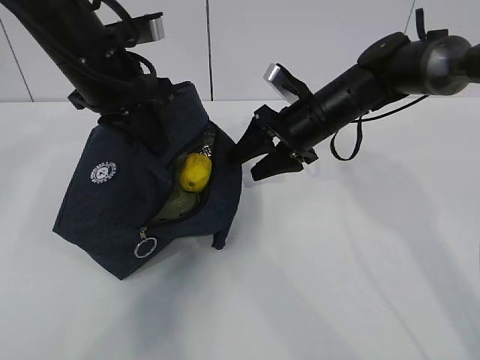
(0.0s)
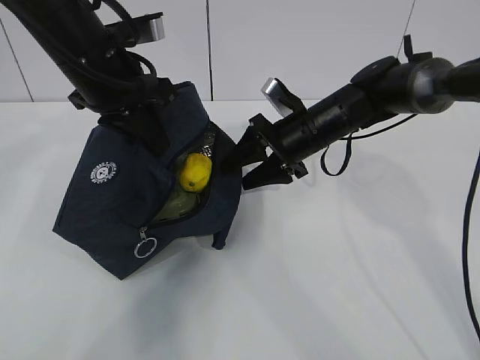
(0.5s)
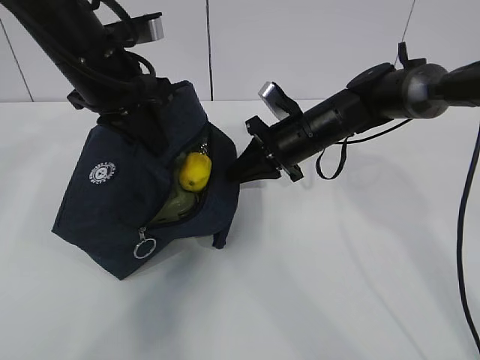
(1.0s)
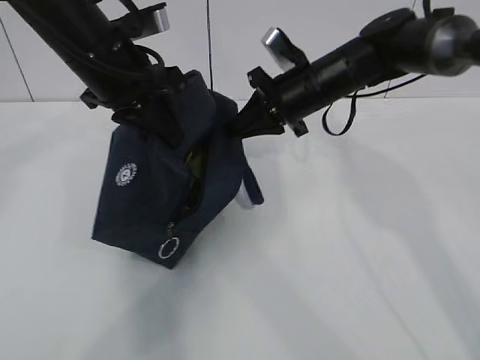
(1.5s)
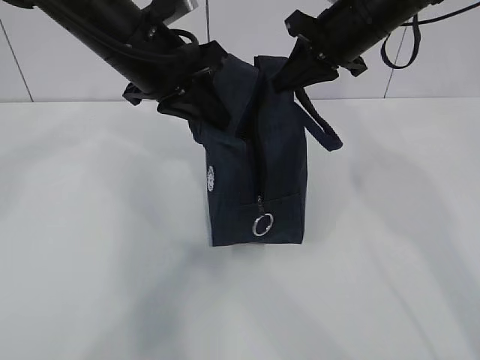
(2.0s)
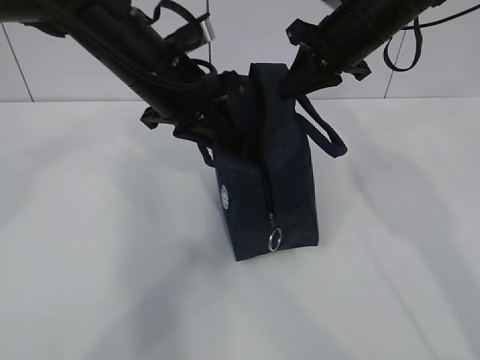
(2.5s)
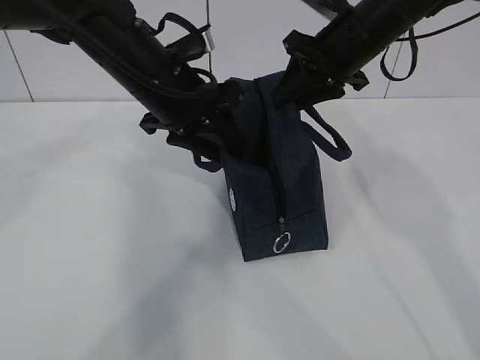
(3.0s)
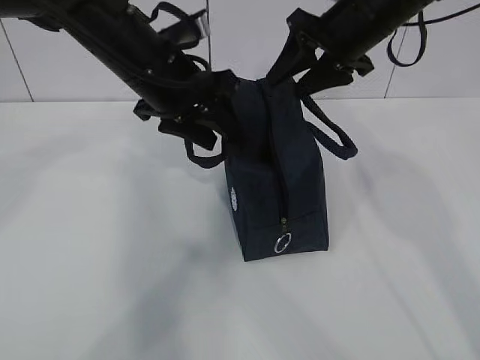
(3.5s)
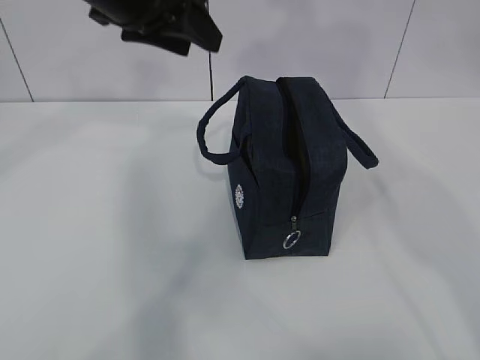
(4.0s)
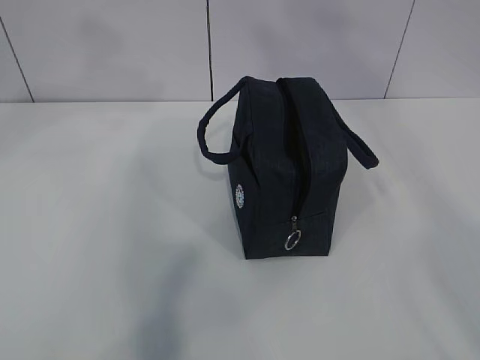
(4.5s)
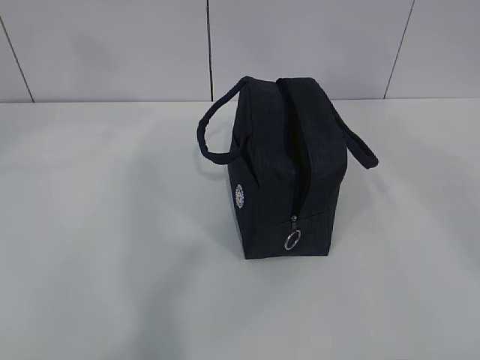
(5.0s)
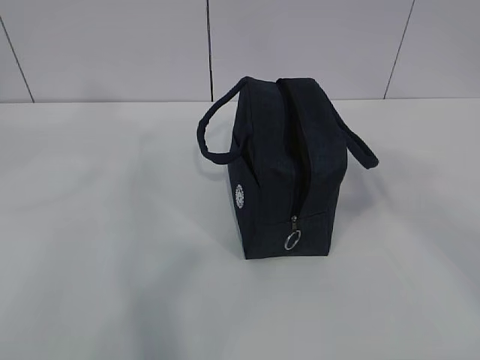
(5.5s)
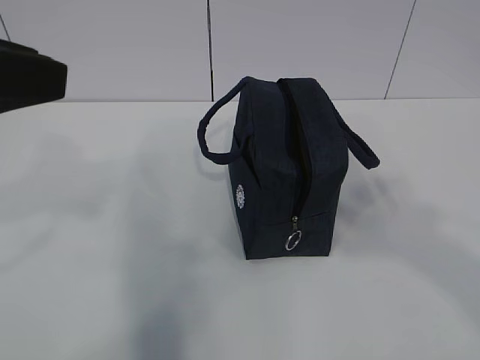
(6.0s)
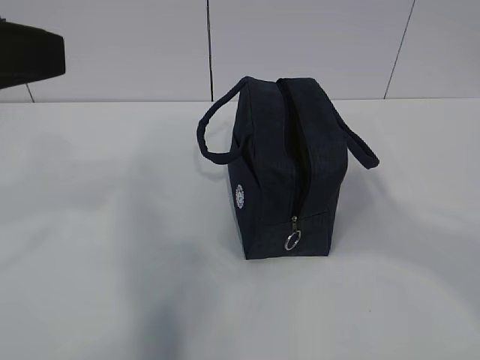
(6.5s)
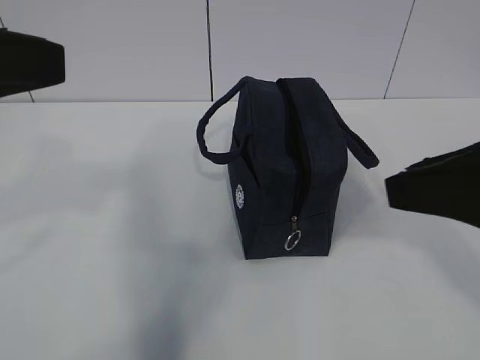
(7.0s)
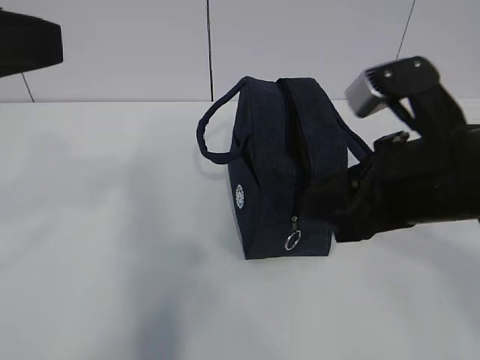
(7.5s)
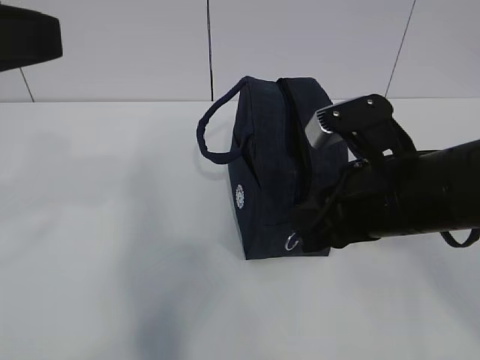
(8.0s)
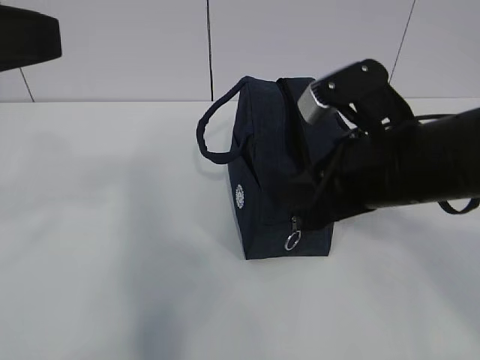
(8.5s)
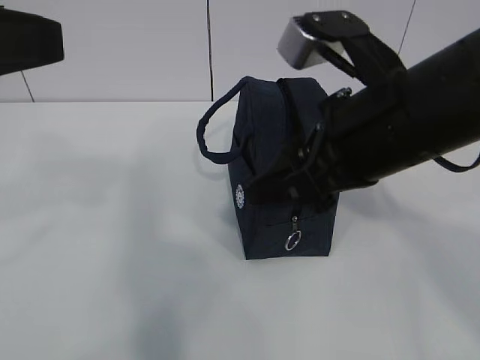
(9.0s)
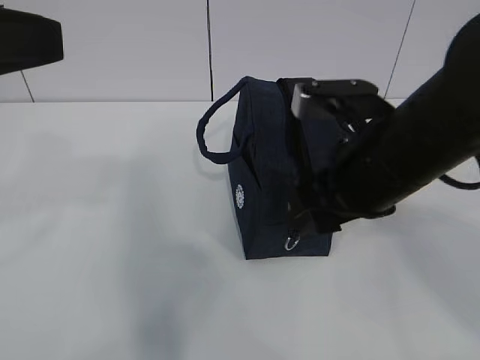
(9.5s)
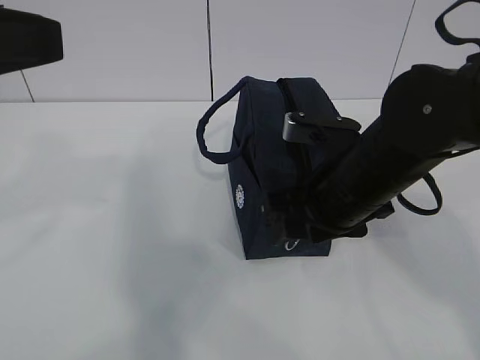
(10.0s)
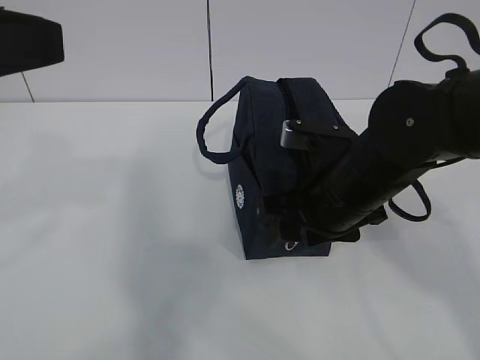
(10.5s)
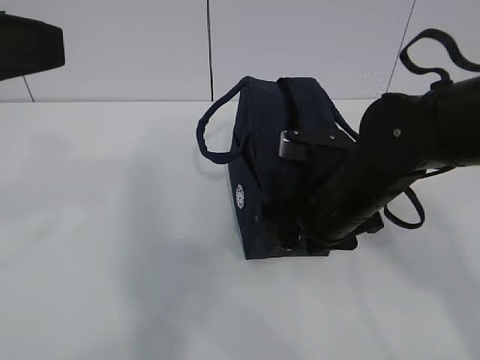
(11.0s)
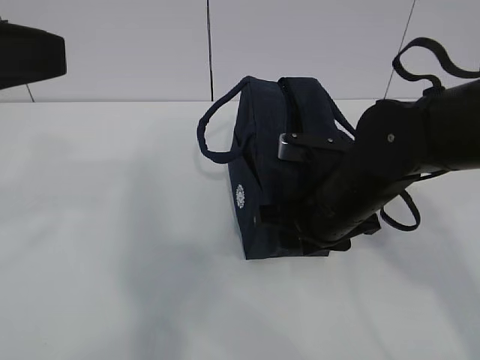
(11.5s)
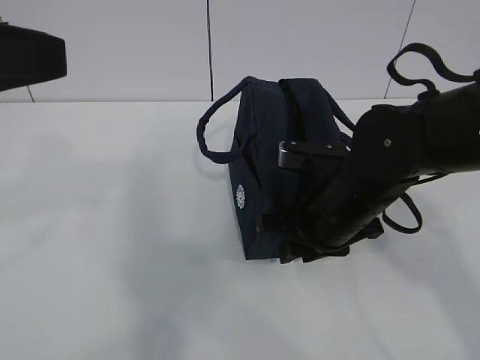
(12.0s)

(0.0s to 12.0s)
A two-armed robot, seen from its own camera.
0.0s - 2.0s: The right gripper shifts about 10 cm upward, and closes.
2.0s - 4.0s: The left gripper is displaced upward by roughly 5 cm, and opens up. Meanwhile the right gripper moves upward and backward, approximately 20 cm, and opens.
4.0s - 6.0s: The left gripper shifts about 20 cm backward and to the left. Meanwhile the right gripper heads backward, covering roughly 30 cm.
6.0s - 8.0s: The right gripper is displaced forward, downward and to the left by about 30 cm, and closes.
8.0s - 10.0s: The right gripper goes upward and returns, approximately 5 cm each way, and opens up.
10.0s - 12.0s: The grippers make only small movements.

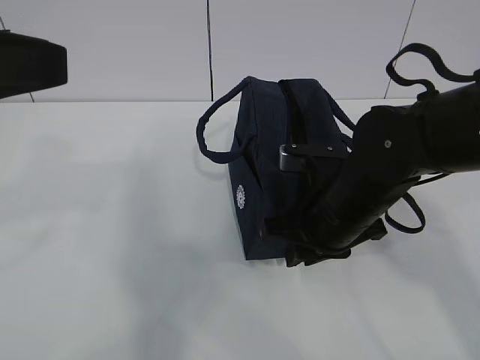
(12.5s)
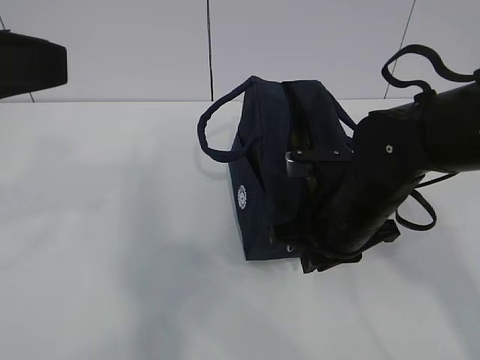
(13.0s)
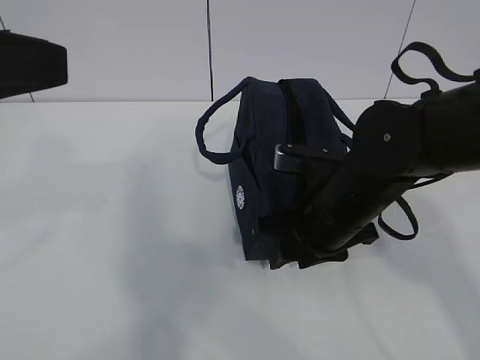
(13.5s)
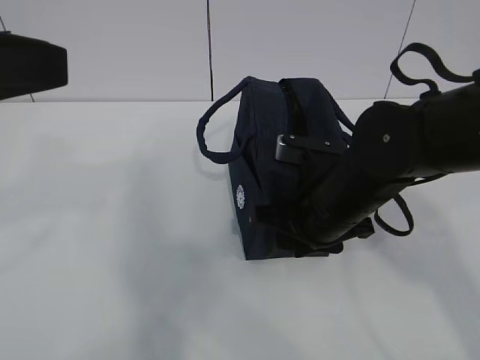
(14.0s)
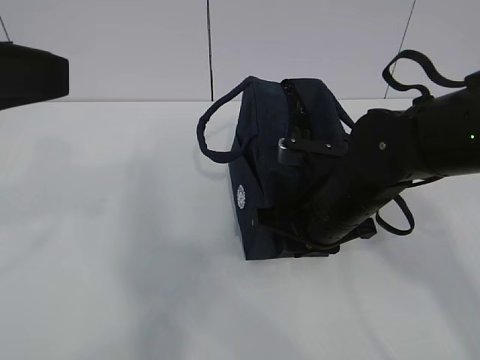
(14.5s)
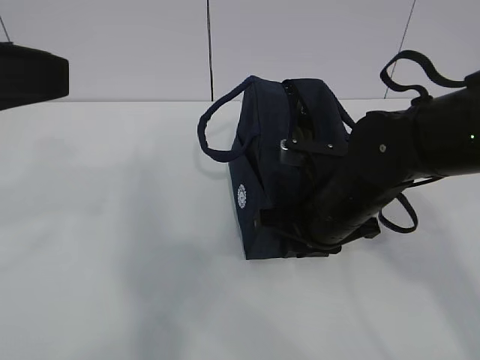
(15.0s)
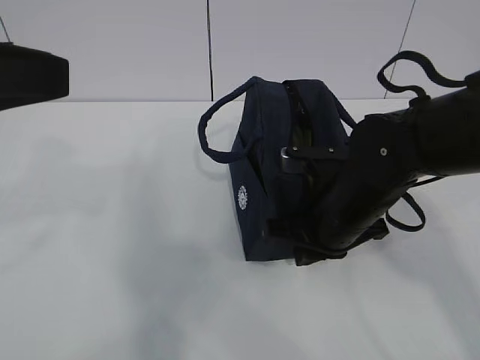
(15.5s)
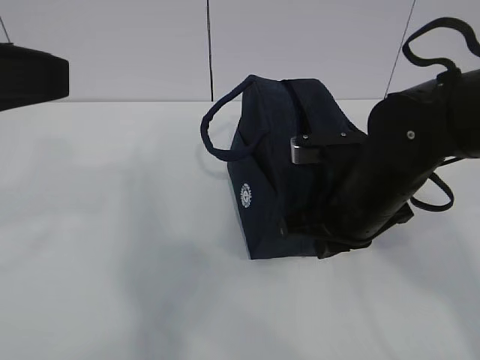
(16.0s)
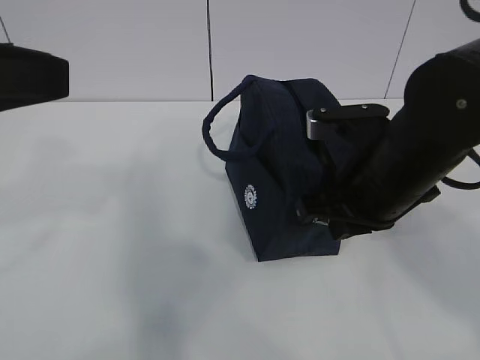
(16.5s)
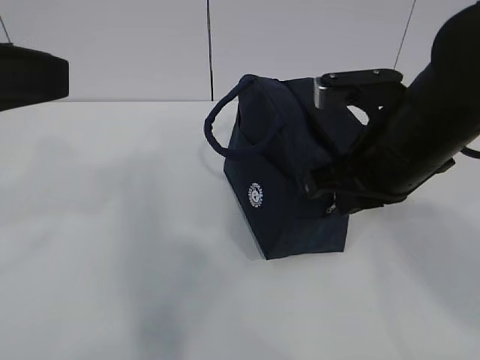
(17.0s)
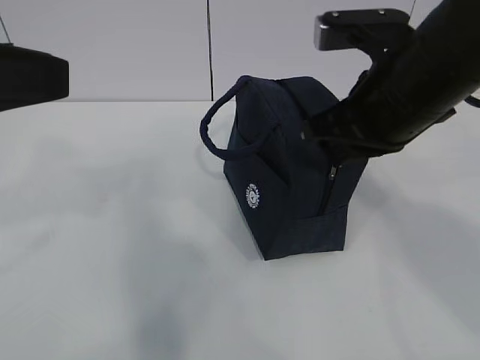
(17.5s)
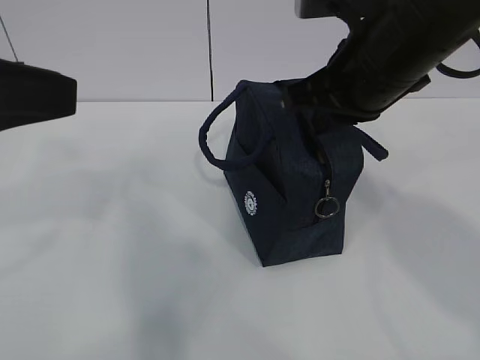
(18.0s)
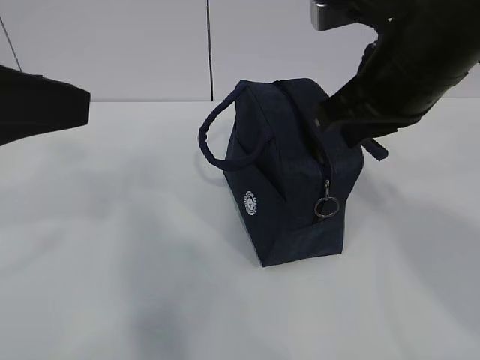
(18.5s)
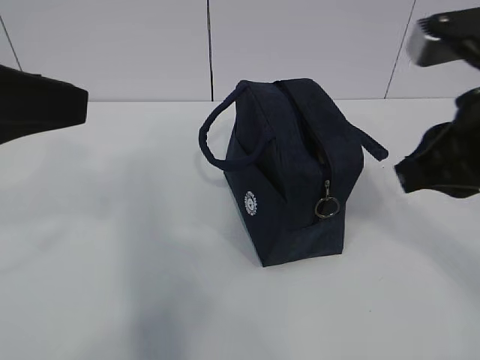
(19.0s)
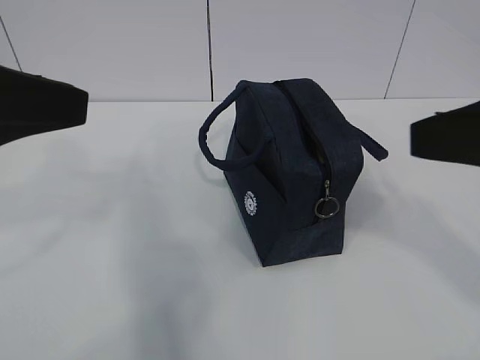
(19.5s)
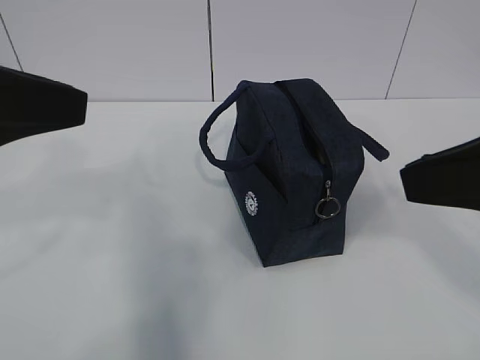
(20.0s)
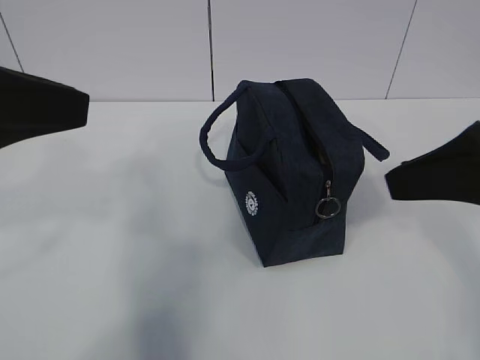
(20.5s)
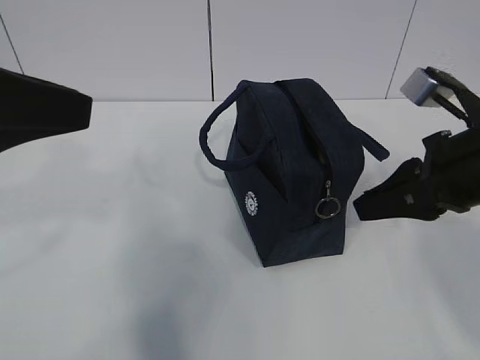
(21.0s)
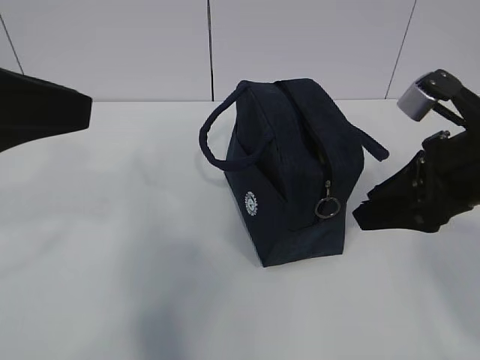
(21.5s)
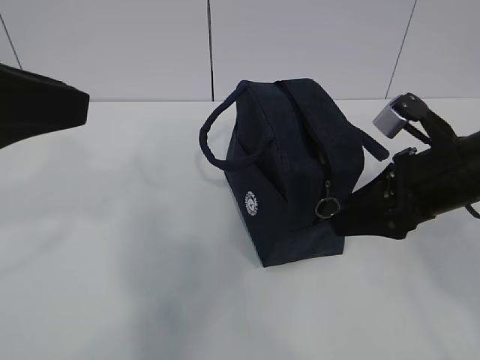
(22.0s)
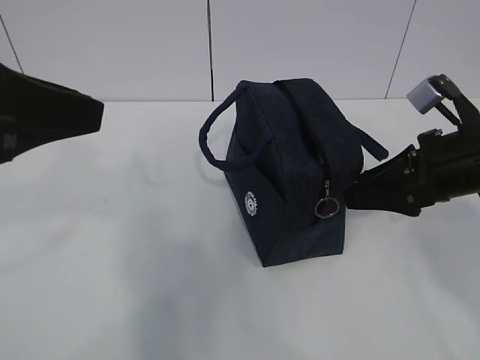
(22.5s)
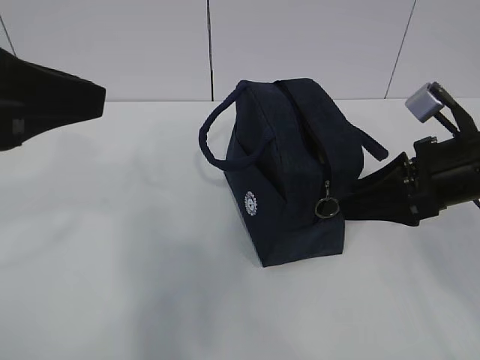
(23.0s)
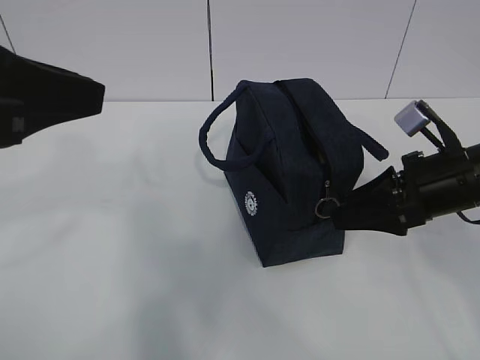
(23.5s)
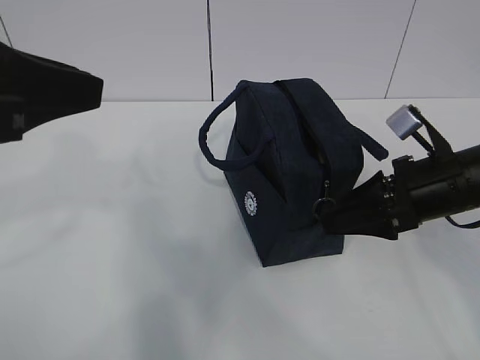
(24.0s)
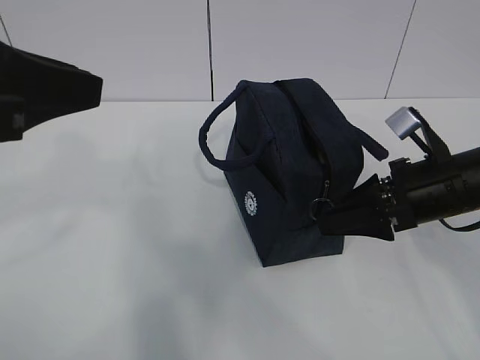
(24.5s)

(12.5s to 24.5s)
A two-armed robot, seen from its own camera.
12.5s - 14.5s: There are only small adjustments of the grippers.
14.5s - 16.5s: The right gripper shifts some 5 cm upward.
16.5s - 18.5s: The right gripper heads upward, covering approximately 10 cm.
18.5s - 20.5s: The right gripper is displaced backward and to the right by approximately 10 cm.
20.5s - 22.5s: The right gripper moves downward and forward, some 15 cm, and opens.
22.5s - 24.5s: There are only small adjustments of the grippers.

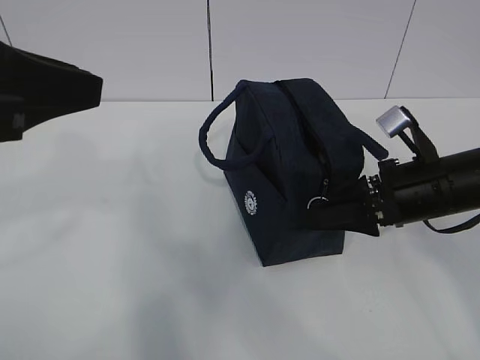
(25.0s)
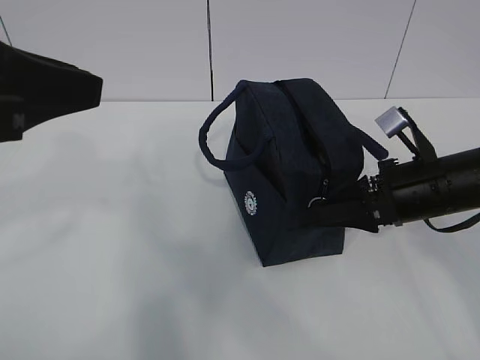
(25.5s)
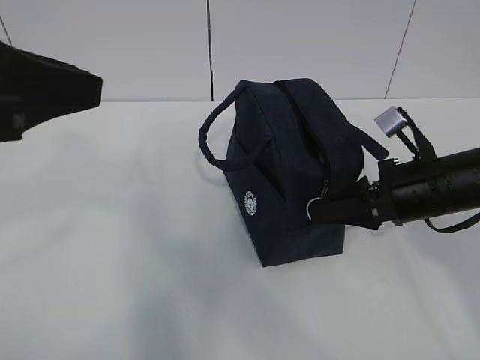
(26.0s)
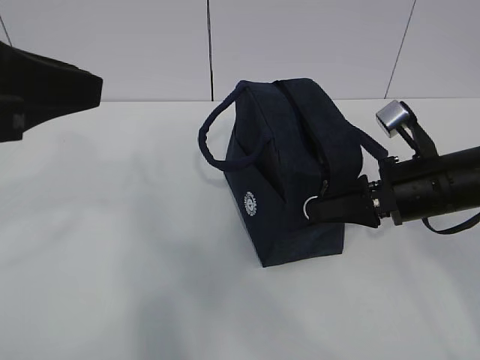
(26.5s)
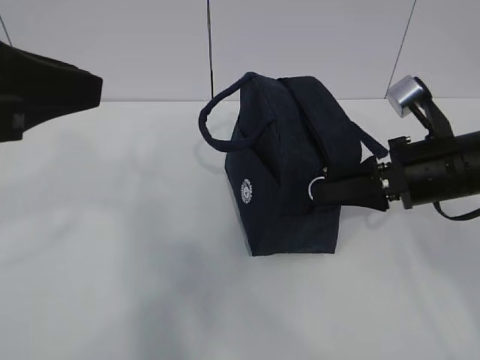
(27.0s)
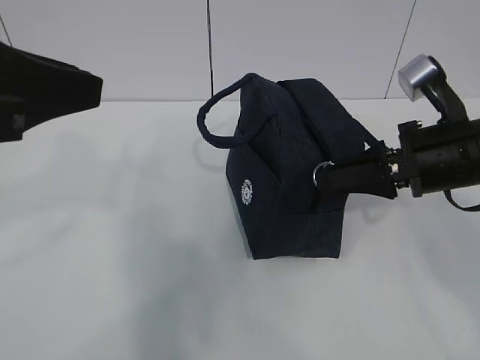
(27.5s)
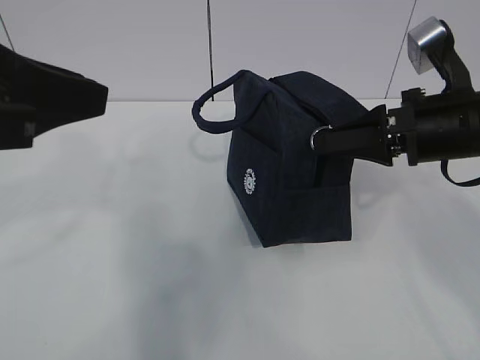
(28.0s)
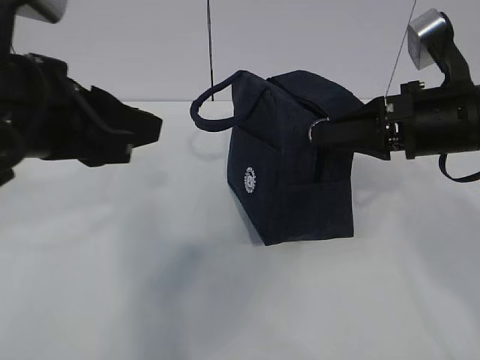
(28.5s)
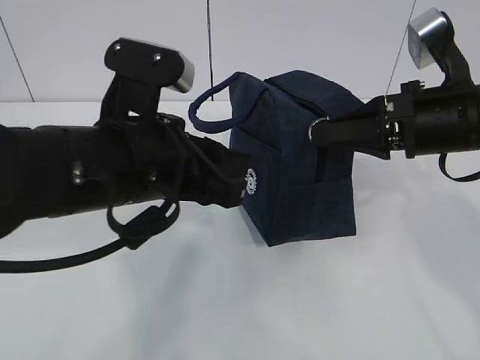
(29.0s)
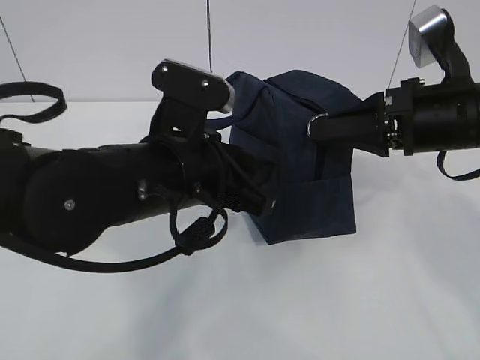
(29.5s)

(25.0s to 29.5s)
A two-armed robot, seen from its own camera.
25.0s - 27.0s: The right gripper closes up.
27.0s - 29.5s: The left gripper heads to the right, downward and forward, covering approximately 20 cm.
